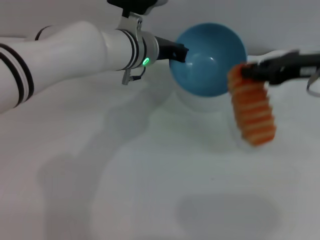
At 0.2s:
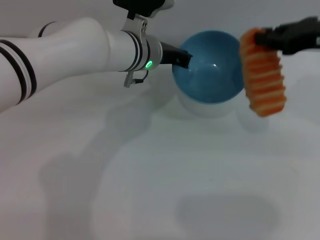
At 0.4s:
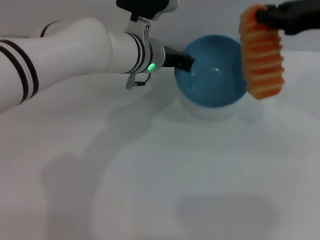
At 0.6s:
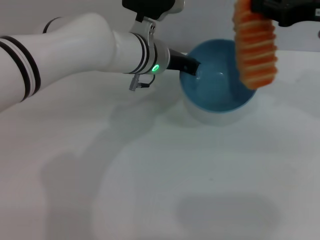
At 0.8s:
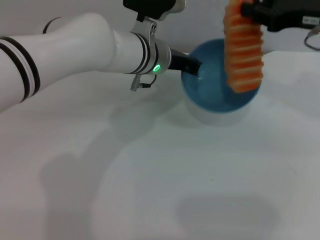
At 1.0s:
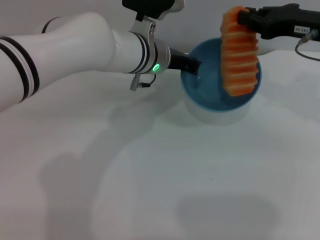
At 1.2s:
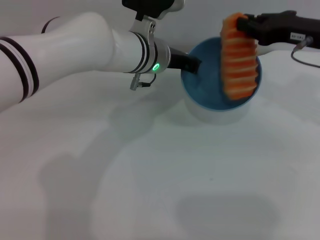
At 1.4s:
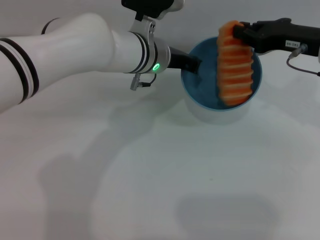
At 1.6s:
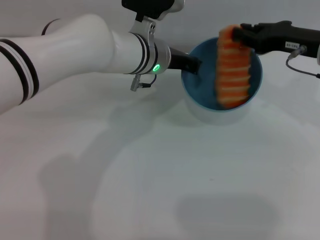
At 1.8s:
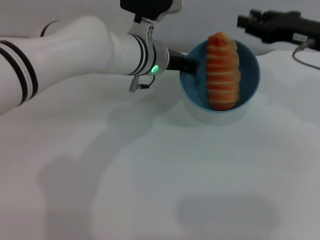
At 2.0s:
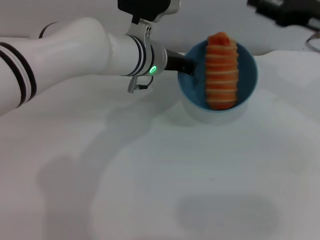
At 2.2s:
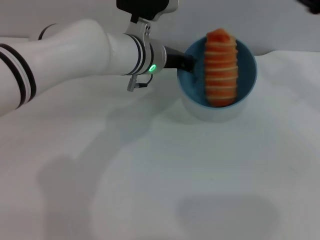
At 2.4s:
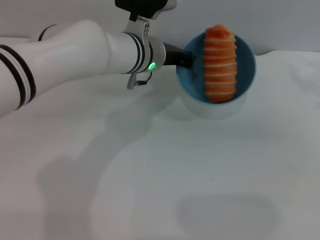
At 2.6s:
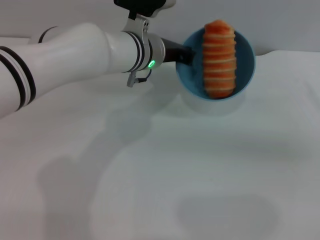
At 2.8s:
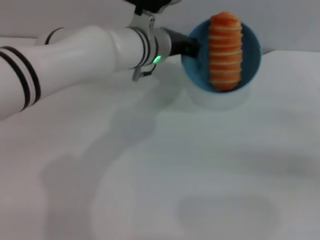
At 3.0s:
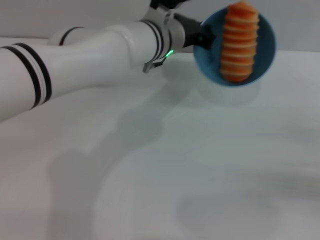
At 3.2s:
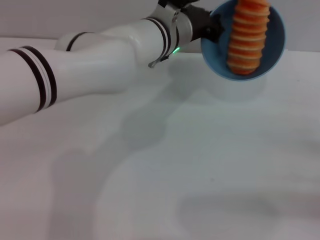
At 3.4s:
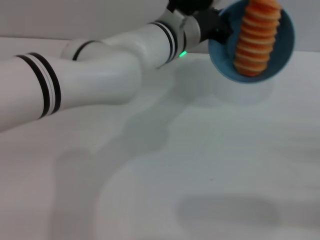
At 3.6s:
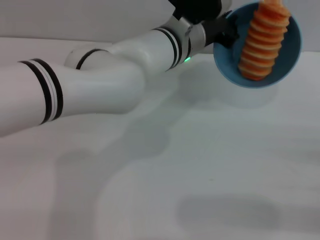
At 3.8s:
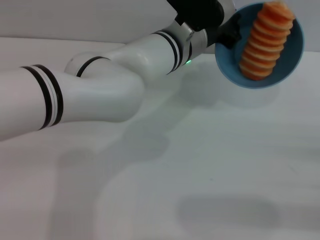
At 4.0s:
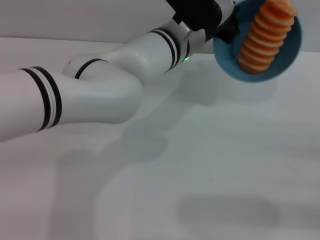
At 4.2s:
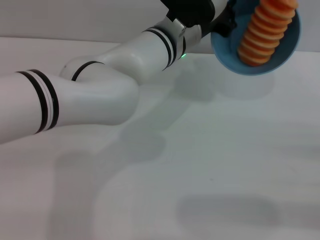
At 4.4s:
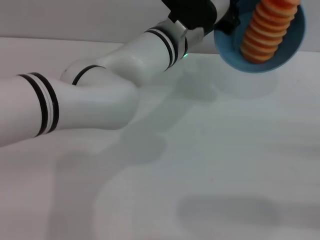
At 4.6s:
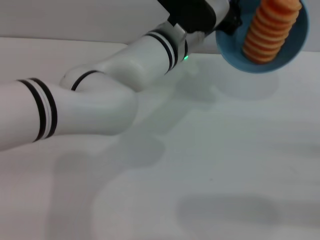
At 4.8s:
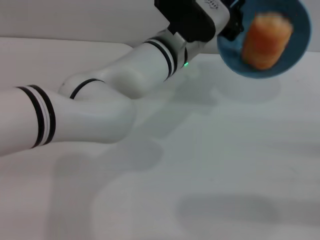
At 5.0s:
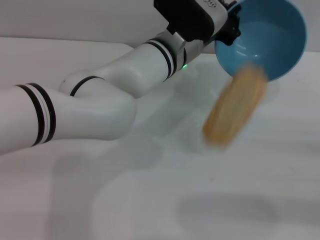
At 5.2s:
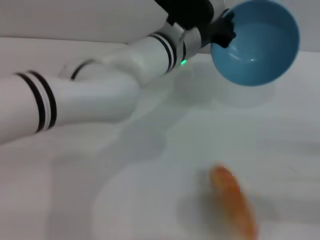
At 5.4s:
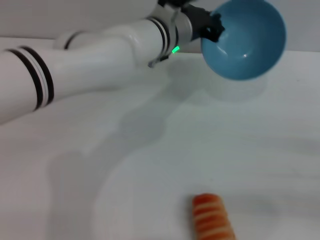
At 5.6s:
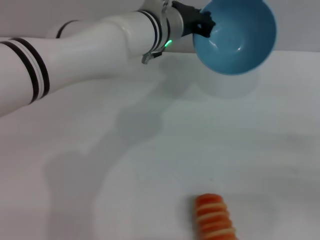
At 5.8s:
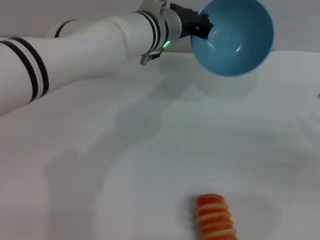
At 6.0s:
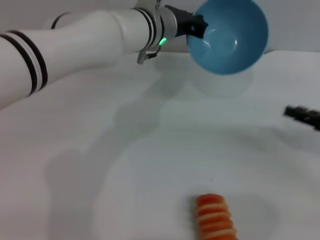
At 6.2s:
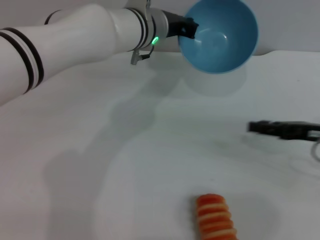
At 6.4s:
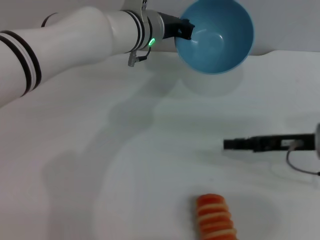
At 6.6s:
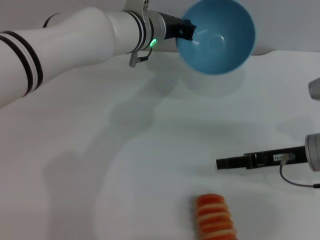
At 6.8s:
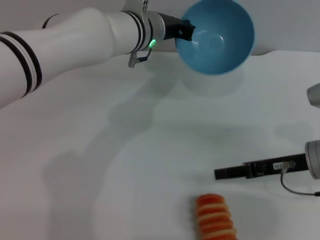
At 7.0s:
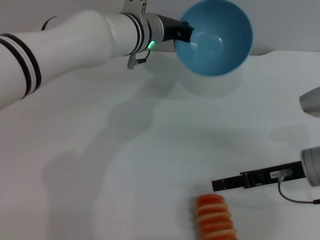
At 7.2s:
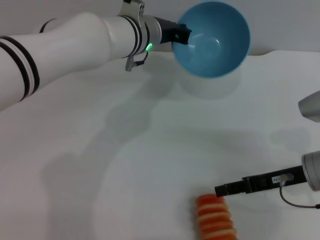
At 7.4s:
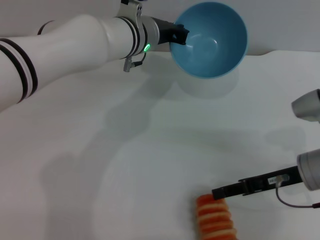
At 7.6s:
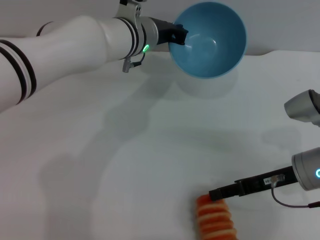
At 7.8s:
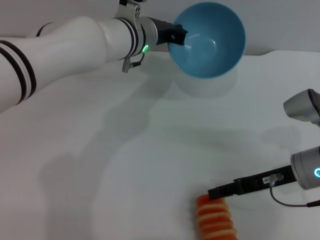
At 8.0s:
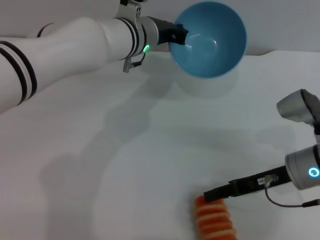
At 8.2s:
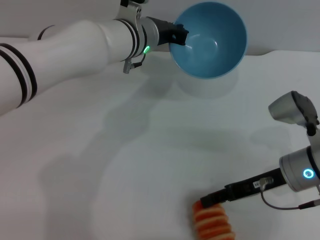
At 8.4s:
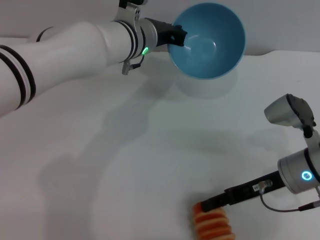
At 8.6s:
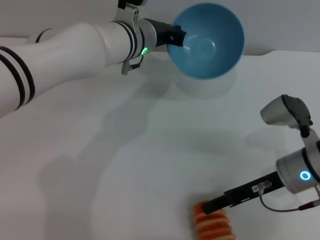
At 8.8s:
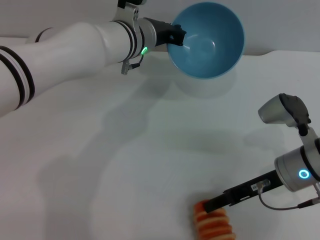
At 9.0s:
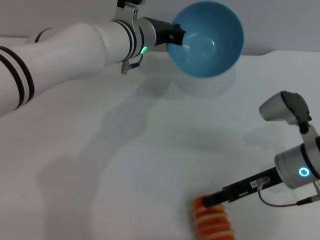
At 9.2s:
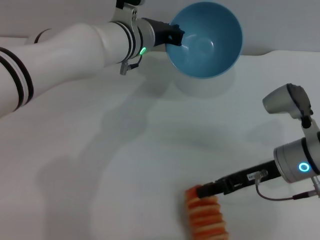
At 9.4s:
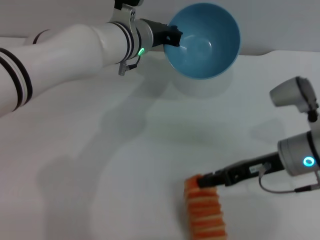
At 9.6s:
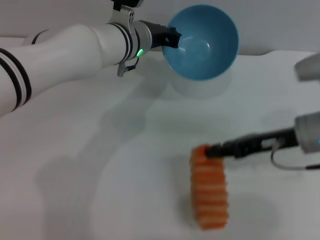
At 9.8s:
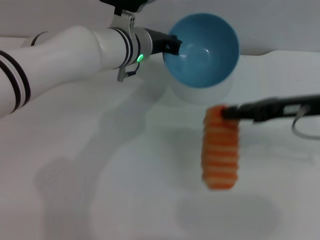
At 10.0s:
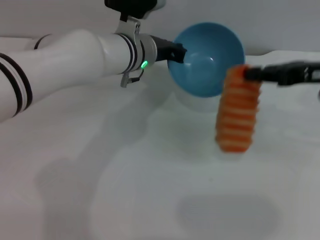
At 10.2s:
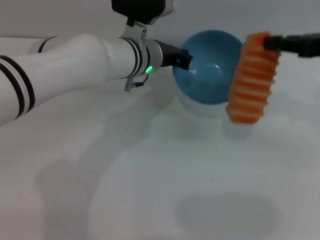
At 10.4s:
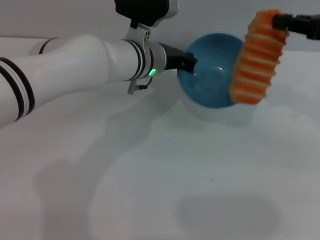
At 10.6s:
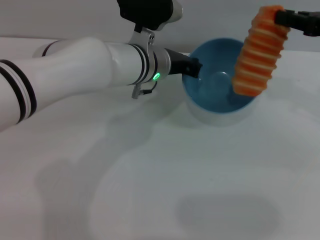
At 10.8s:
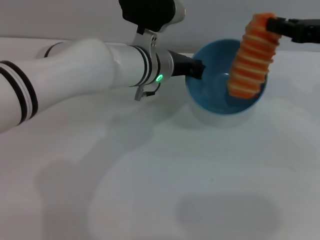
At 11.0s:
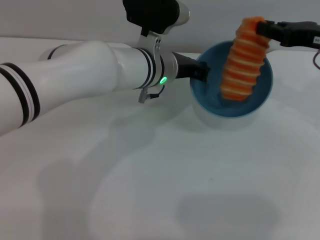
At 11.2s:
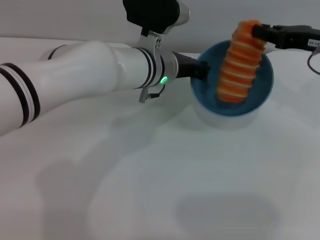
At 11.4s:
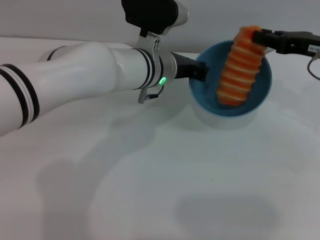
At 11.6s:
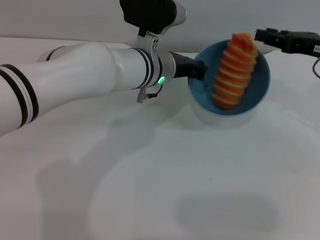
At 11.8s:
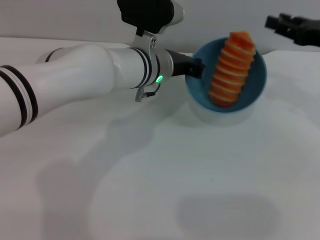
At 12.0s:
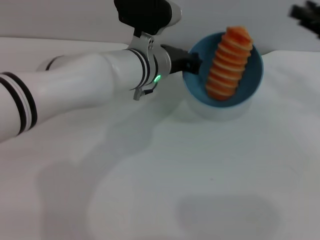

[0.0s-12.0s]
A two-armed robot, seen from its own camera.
Task of the whole recording: put the bread into the blue bowl and pour it out repeatedly.
Step, 0.2s to 1.8s: Place the bread into the bowl.
Step, 2.0s to 5.2s: Pour the bread out of the bowl.
Step, 5.6s to 10.0s: Pick up the bread with the right gripper.
Step, 10.2s to 11.8s: Place the bread into the bowl.
0.0s to 1.6s: The right gripper reaches some 5 cm upward, then returns.
1.6s to 3.0s: The right gripper goes roughly 25 cm backward, to the right and downward, and opens its fingers.
3.0s to 4.4s: The right gripper ends up roughly 5 cm from where it was.
4.4s to 6.0s: The right gripper travels forward and to the left by about 10 cm.
6.0s to 7.6s: The right gripper is displaced to the left by some 10 cm.
7.6s to 9.0s: The grippers move only a little.
9.0s to 10.4s: The right gripper travels upward and to the right by some 20 cm, and closes.
10.4s to 12.0s: The right gripper shifts approximately 5 cm downward, and opens.

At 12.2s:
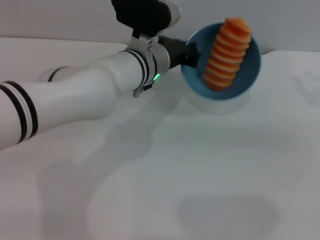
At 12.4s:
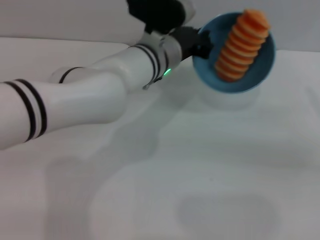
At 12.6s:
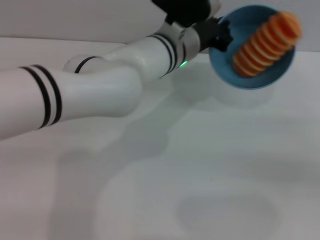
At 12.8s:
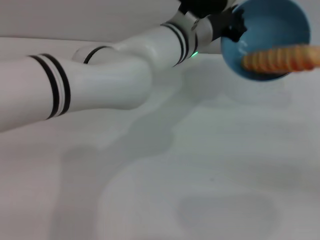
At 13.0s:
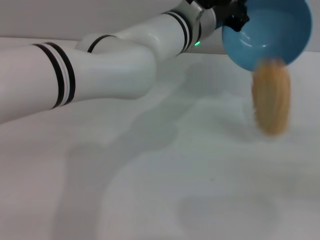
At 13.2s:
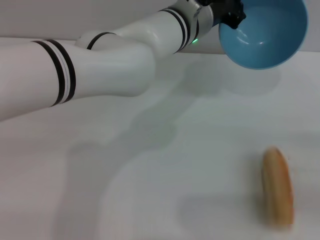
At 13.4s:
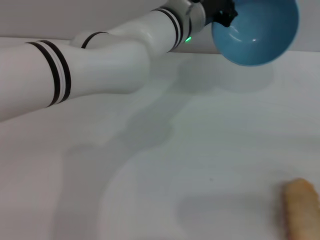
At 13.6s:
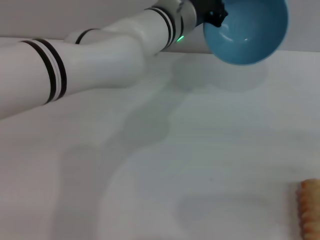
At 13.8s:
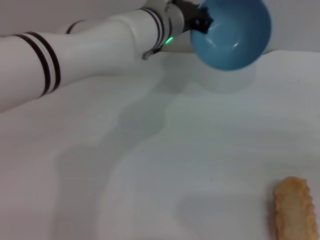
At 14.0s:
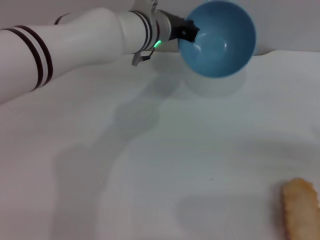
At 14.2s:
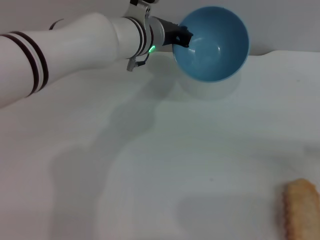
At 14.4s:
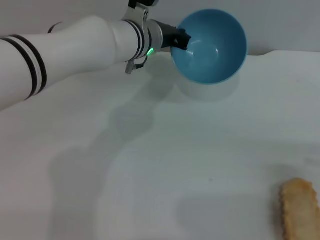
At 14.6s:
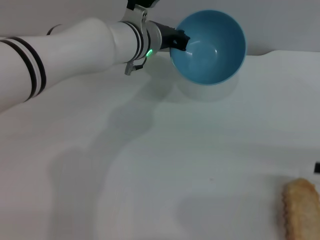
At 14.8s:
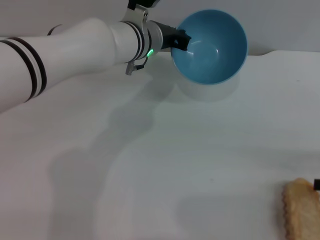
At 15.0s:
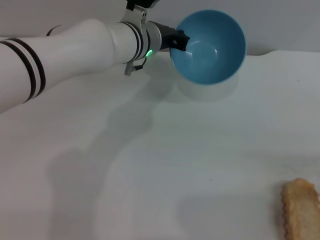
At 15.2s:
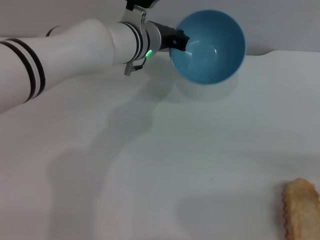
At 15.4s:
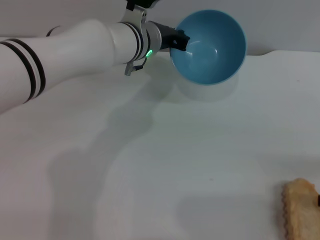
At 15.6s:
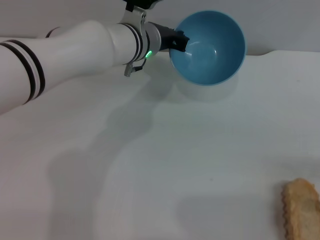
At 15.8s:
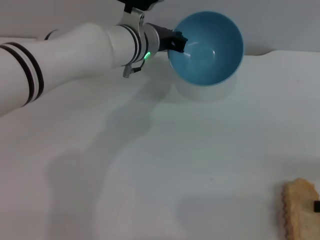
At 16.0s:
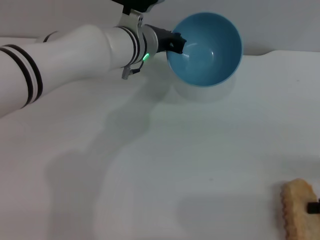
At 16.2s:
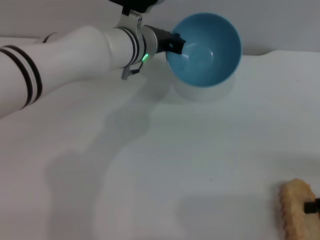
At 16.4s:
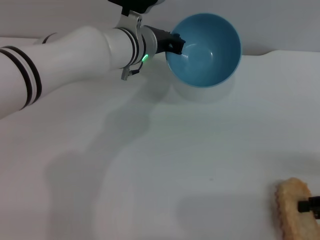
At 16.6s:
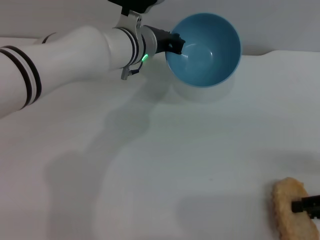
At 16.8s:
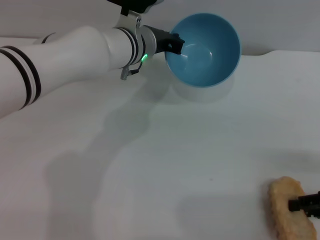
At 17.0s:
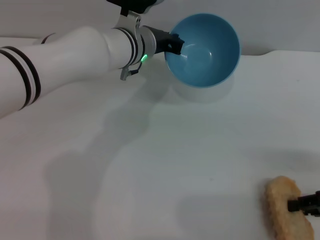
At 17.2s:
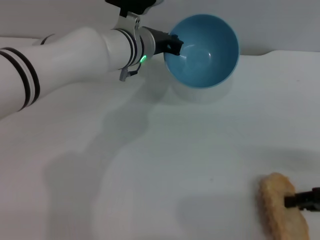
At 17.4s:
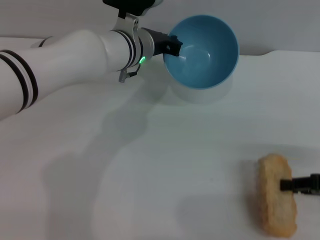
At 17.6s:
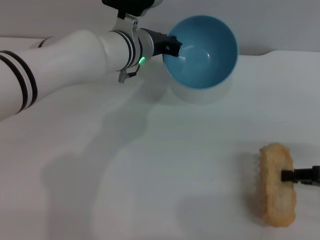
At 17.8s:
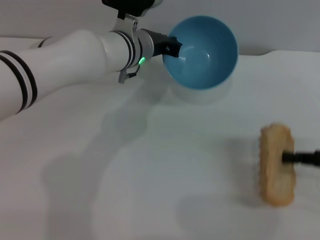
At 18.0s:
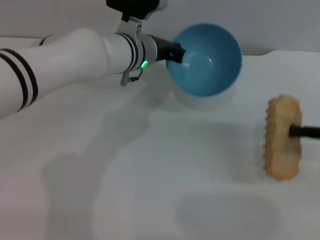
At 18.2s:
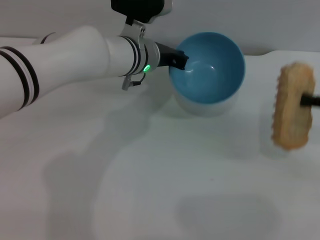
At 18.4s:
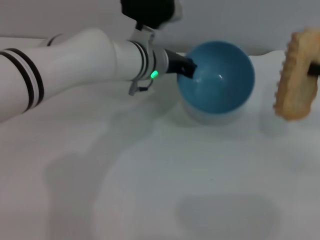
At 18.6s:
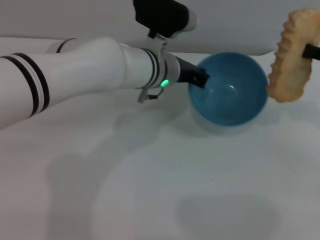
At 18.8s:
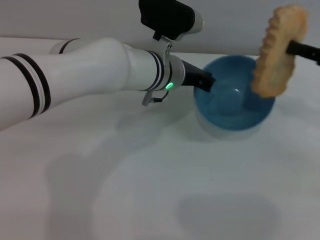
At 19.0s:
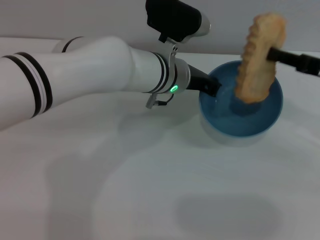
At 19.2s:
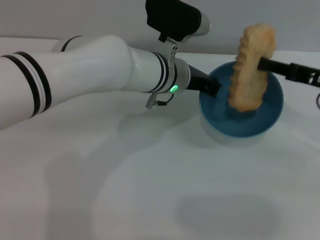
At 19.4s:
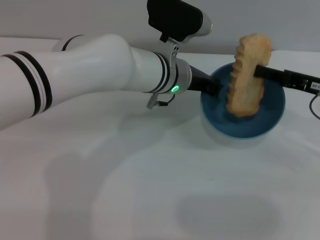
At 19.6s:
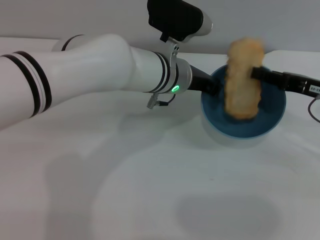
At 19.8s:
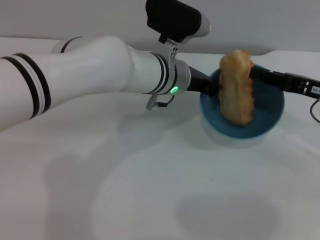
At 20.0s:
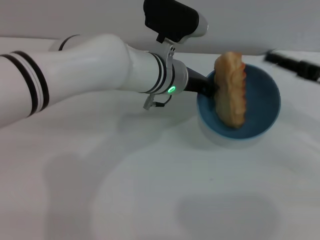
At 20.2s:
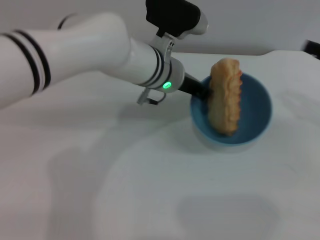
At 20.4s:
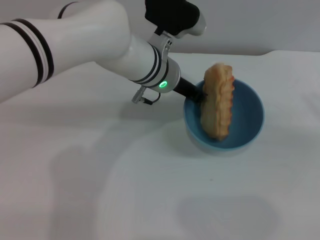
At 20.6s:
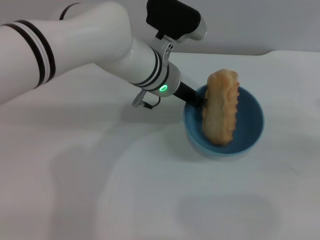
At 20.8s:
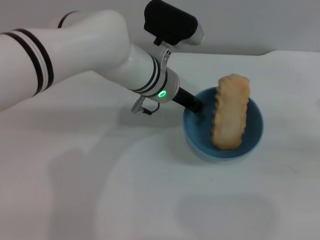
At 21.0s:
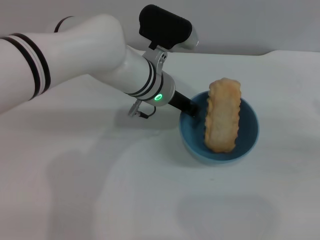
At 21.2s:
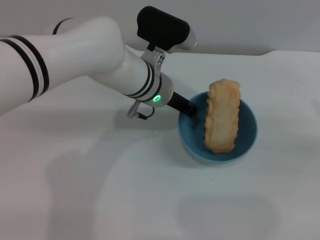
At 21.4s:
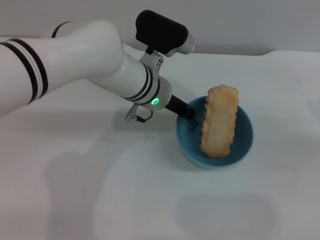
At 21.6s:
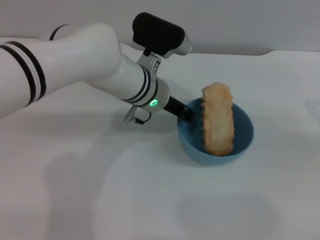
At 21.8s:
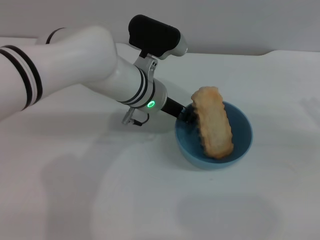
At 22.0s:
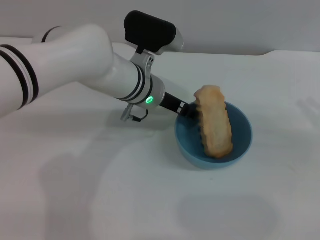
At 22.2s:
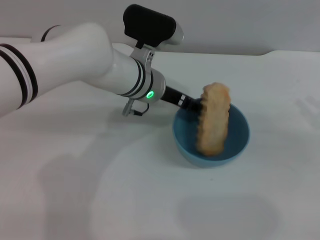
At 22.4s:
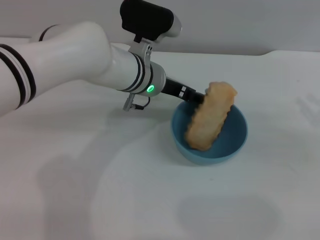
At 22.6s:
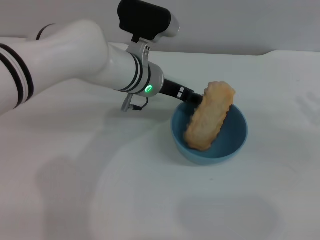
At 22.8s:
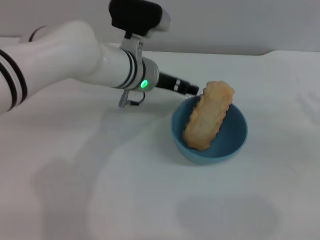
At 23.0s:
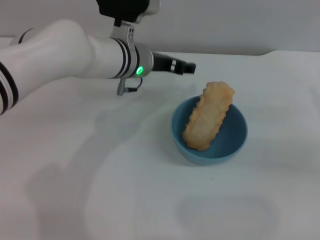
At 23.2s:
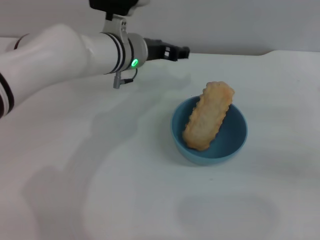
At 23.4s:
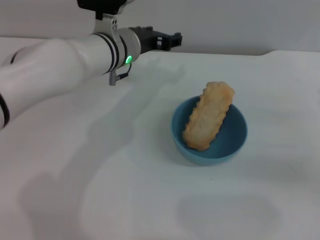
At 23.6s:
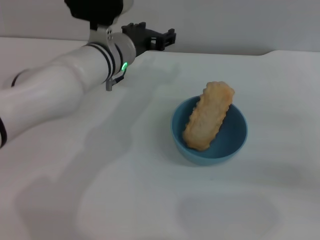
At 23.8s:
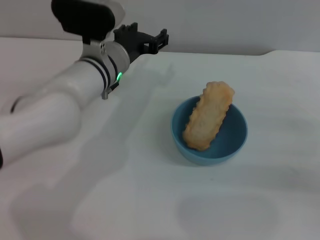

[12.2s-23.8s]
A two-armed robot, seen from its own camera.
Task of the whole recording: put the bread into the blue bowl and pour it out repeatedly.
Step, 12.2s to 13.4s: Pour the bread out of the bowl.
Step, 13.6s to 18.0s: Pick up the bread with the right gripper.
Step, 18.2s to 19.8s: Place the bread into the bowl.
Step, 20.2s to 22.8s: Place the bowl on the table.
12.2s to 13.6s: The left gripper changes place by approximately 5 cm. The right gripper travels backward by roughly 10 cm.
13.6s to 15.0s: The left gripper changes place by approximately 5 cm.
15.0s to 16.6s: The right gripper changes place by approximately 5 cm.
16.6s to 18.0s: The right gripper is displaced upward by about 5 cm, and closes its fingers.
18.0s to 19.4s: The left gripper ends up roughly 5 cm from where it was, while the right gripper heads to the left and forward, covering about 10 cm.
19.4s to 21.0s: The right gripper moves to the right and backward, approximately 10 cm, and opens its fingers.
21.0s to 22.4s: The left gripper opens.
22.4s to 23.8s: The left gripper ends up roughly 5 cm from where it was, while the right gripper goes about 5 cm downward.
